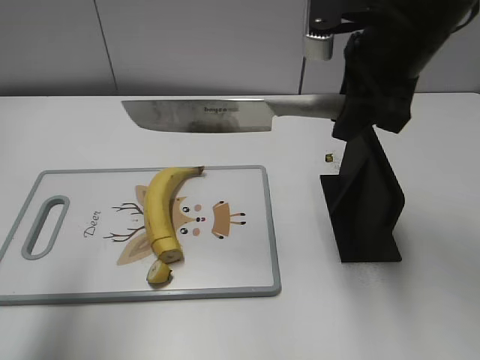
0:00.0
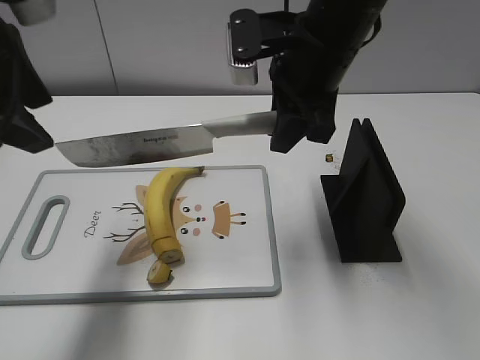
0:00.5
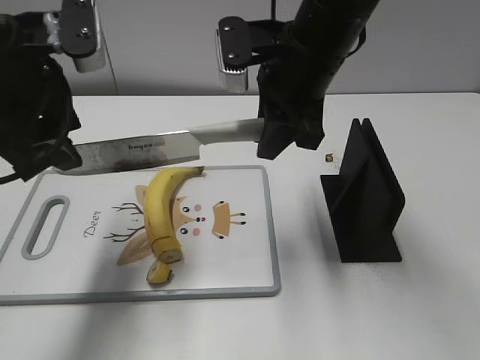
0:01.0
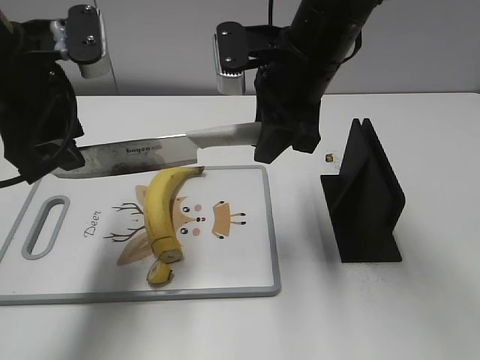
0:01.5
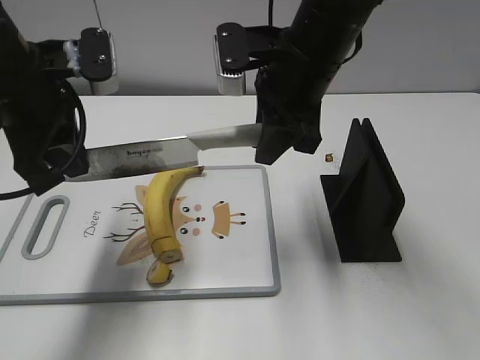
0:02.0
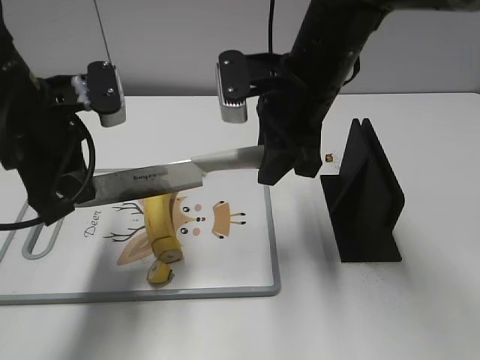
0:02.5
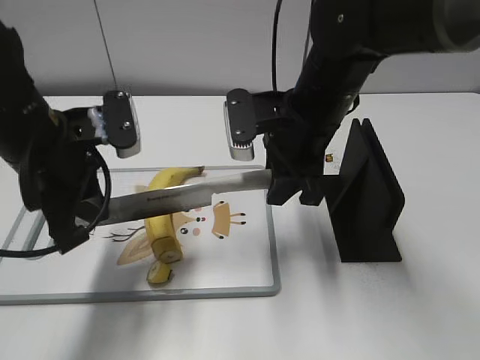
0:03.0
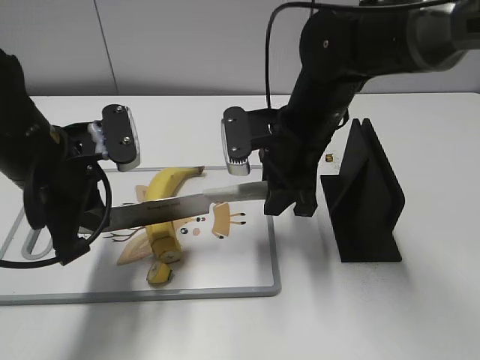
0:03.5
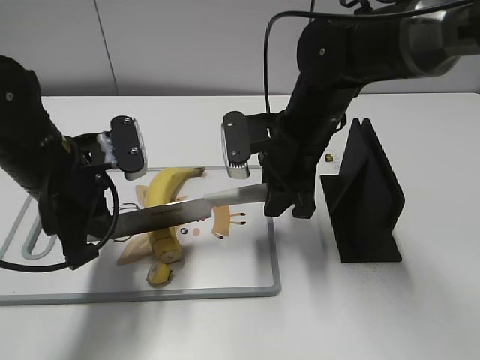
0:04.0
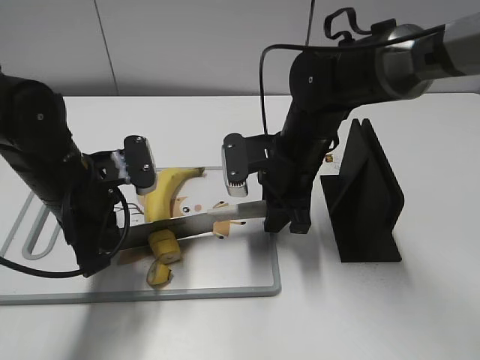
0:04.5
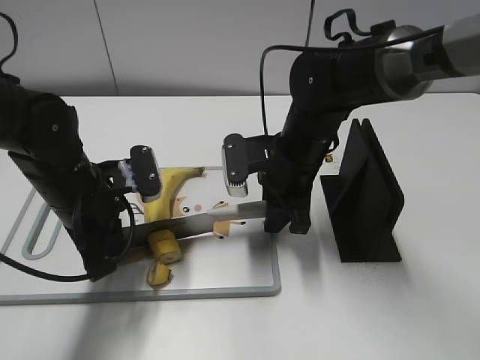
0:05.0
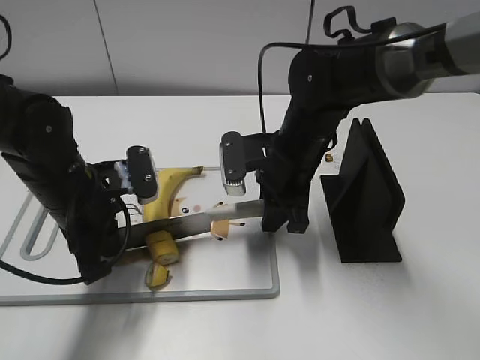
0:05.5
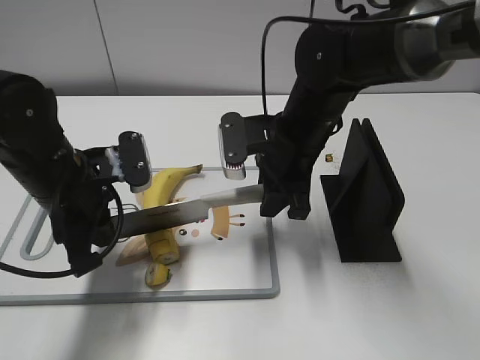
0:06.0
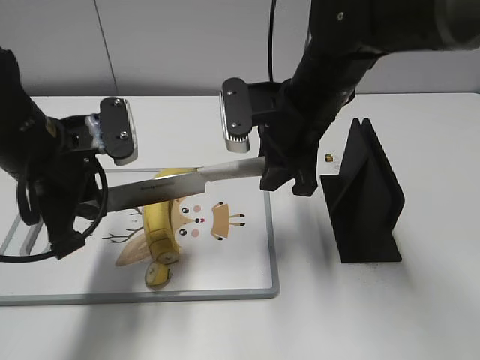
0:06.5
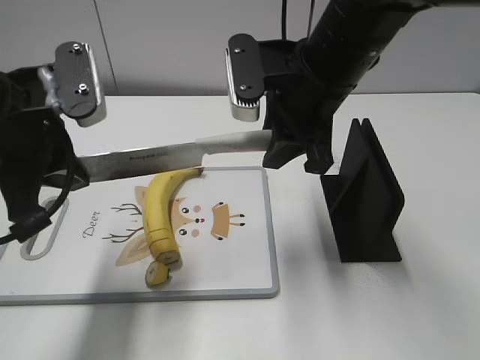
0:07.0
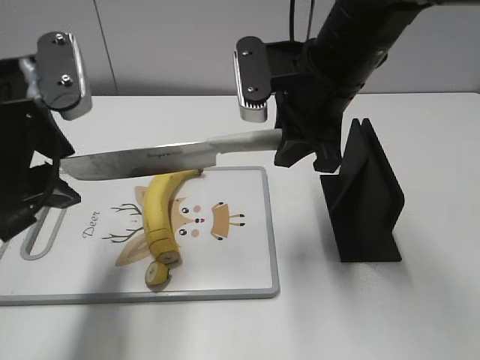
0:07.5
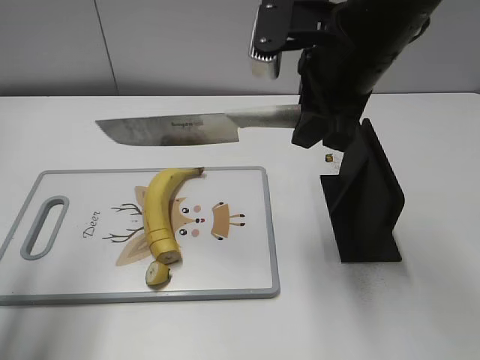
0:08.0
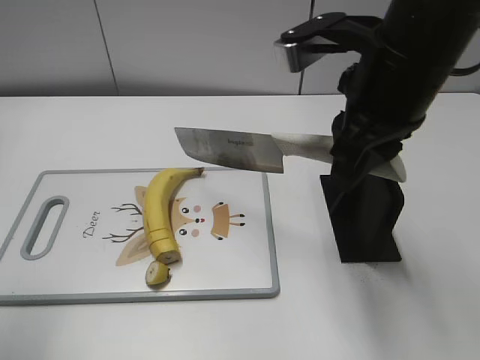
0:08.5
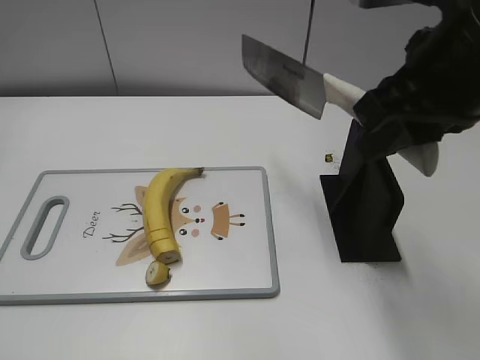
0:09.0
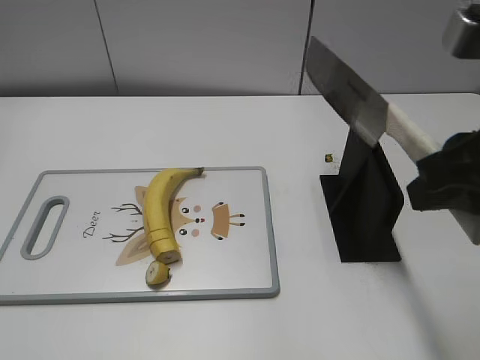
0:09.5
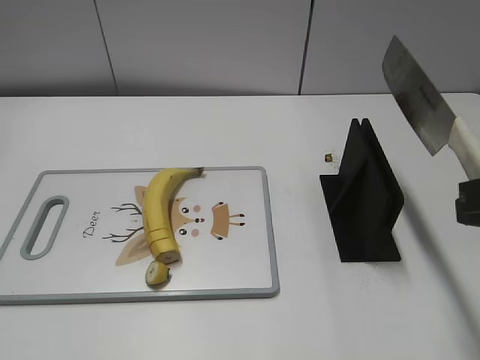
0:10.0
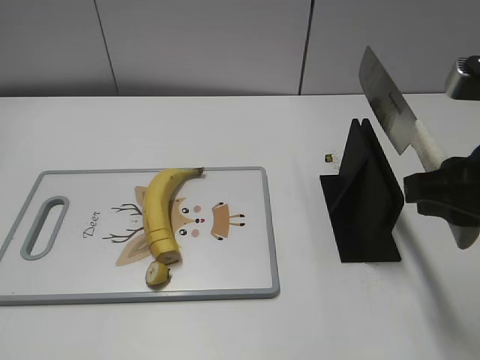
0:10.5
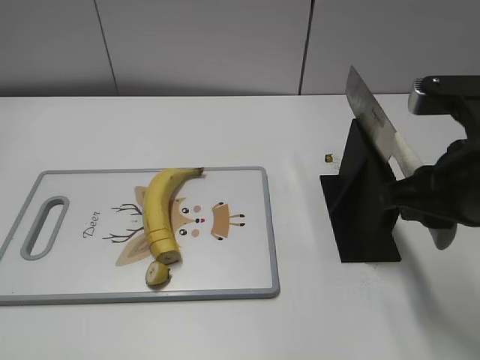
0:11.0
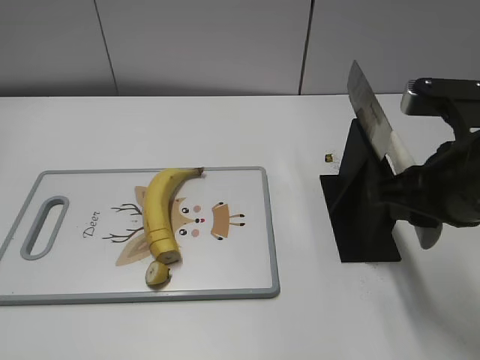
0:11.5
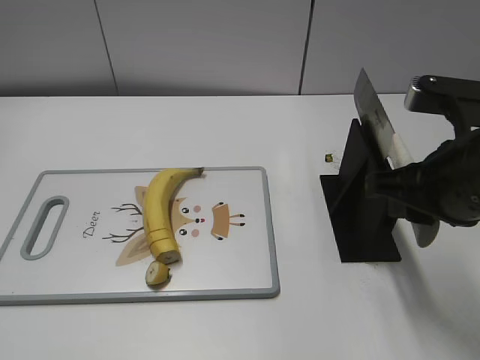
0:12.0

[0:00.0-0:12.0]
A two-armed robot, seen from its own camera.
Task of the whole recording: cut banana.
Step, 0:00.0 to 0:04.5: Lift the knife with your right hand.
Step, 0:05.0 to 0:07.5: Cut the banana with your right hand.
Step, 0:08.0 to 0:10.5: Lift the knife with your right hand.
0:00.0 to 0:02.0: The left gripper moves forward, downward and to the right, approximately 15 cm, and closes up. The right gripper goes approximately 10 cm to the left.
0:02.0 to 0:04.0: Both grippers move downward, roughly 10 cm. The left gripper closes.
0:04.0 to 0:06.0: The grippers make only small movements.
0:06.0 to 0:08.0: The left gripper shifts some 20 cm upward and to the left, and opens its fingers. Meanwhile the right gripper travels upward by approximately 15 cm.
0:08.0 to 0:10.0: The right gripper moves backward and to the right, about 20 cm. Meanwhile the left gripper shifts roughly 20 cm backward.
0:10.0 to 0:12.0: The right gripper shifts some 10 cm forward and downward.

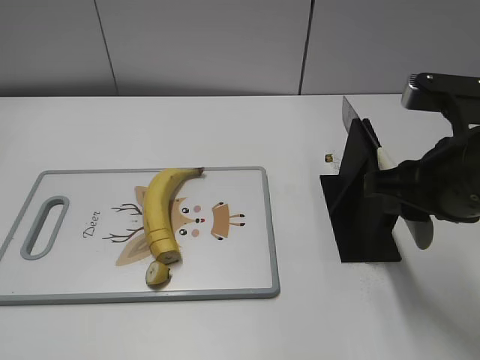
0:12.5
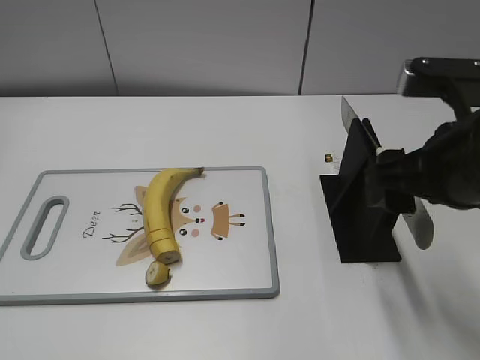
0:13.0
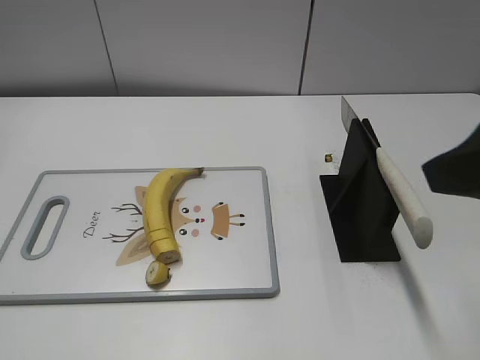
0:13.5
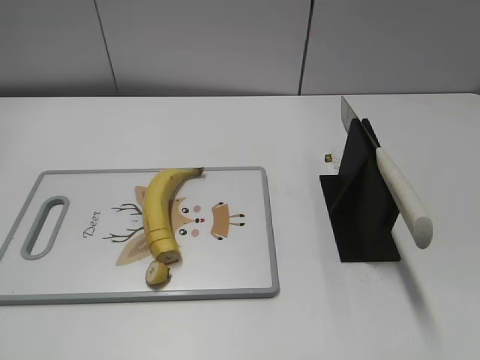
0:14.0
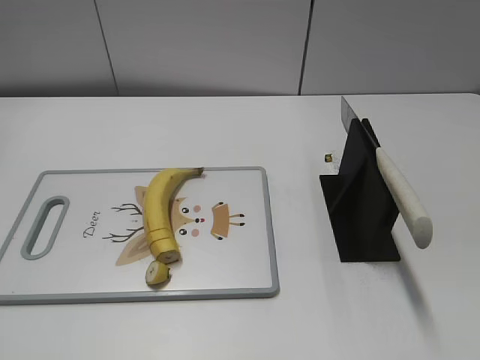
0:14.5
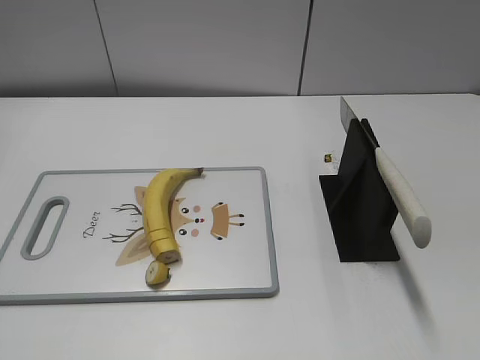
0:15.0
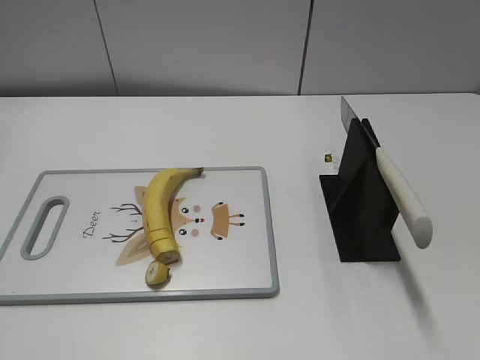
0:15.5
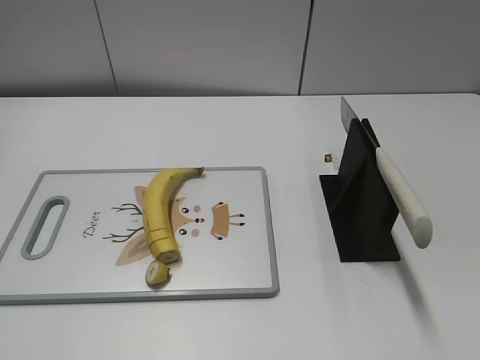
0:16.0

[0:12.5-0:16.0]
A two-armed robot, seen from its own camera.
Task of the whole recording: cut banana.
Step, 0:12.5 to 0:16.0: Place the knife on the storage rack with your right hand.
0:12.5 to 0:14.5: The right gripper is displaced backward and to the right by some 20 cm, and opens up.
